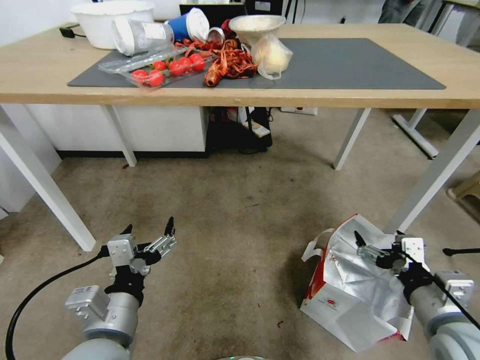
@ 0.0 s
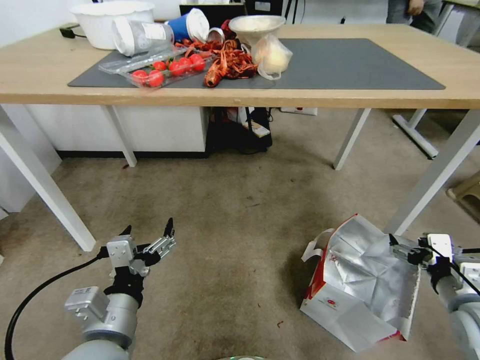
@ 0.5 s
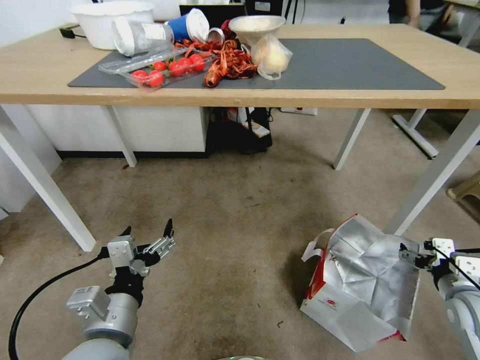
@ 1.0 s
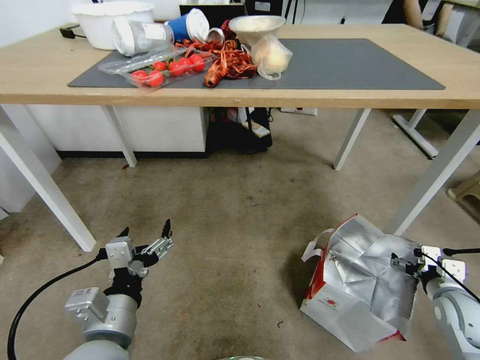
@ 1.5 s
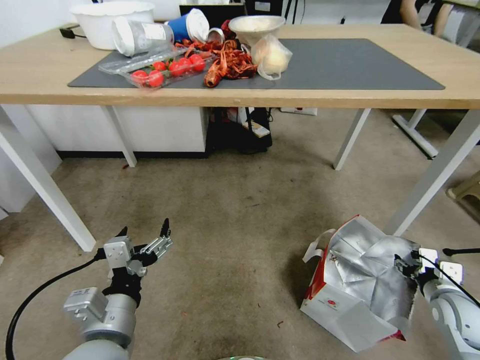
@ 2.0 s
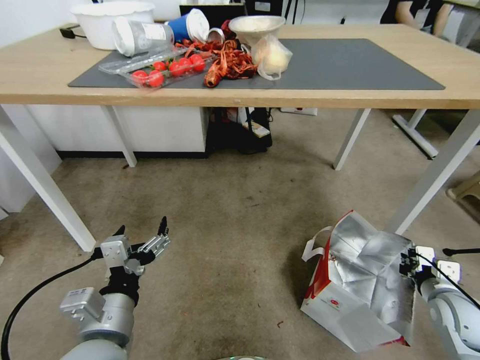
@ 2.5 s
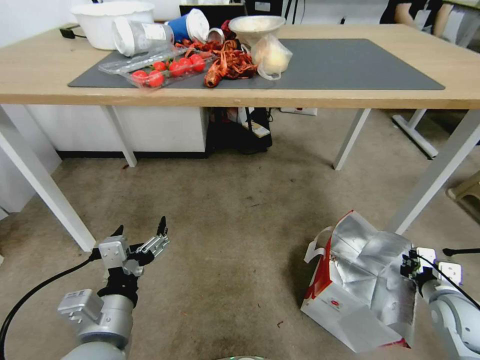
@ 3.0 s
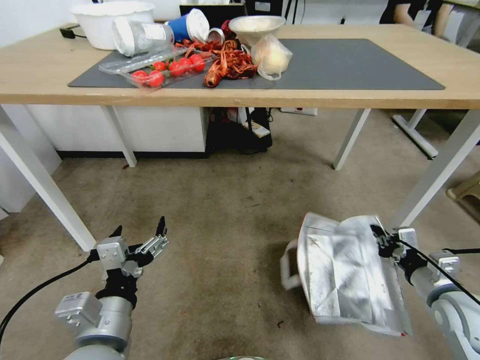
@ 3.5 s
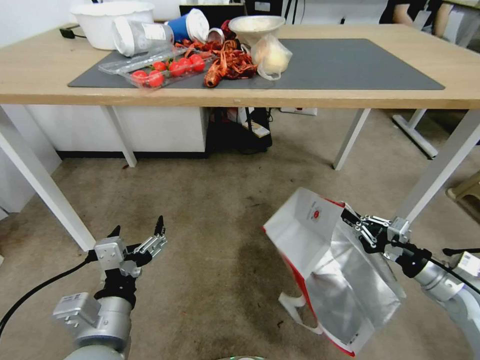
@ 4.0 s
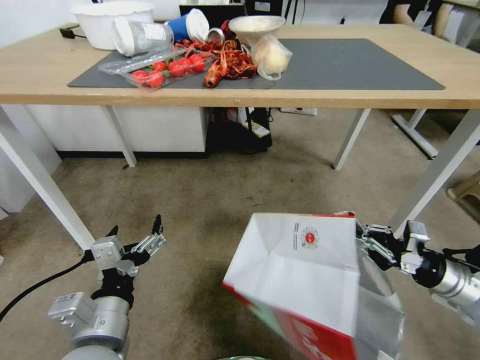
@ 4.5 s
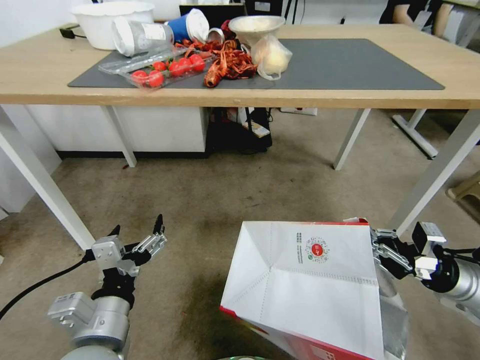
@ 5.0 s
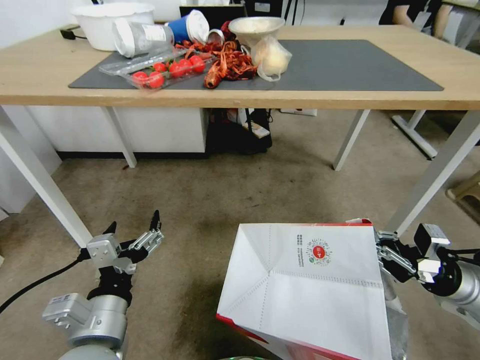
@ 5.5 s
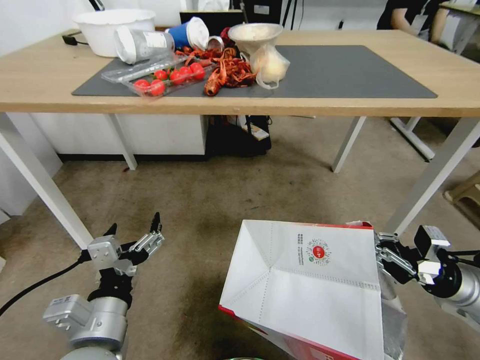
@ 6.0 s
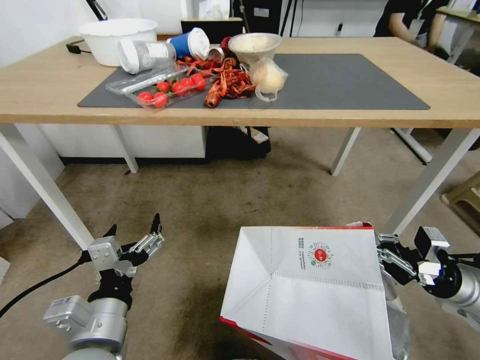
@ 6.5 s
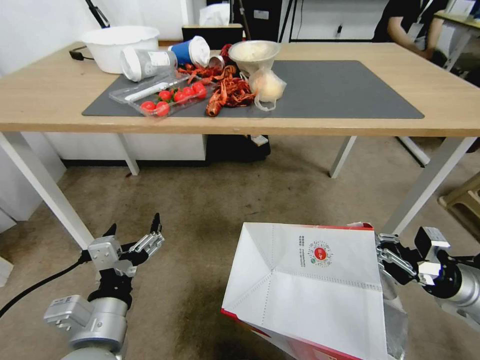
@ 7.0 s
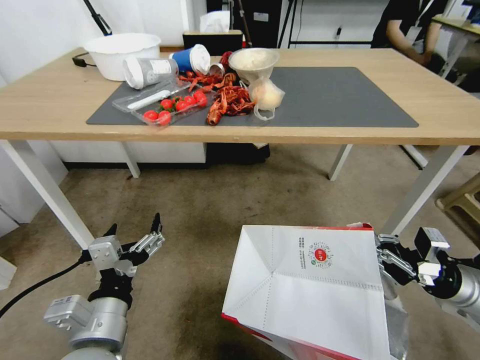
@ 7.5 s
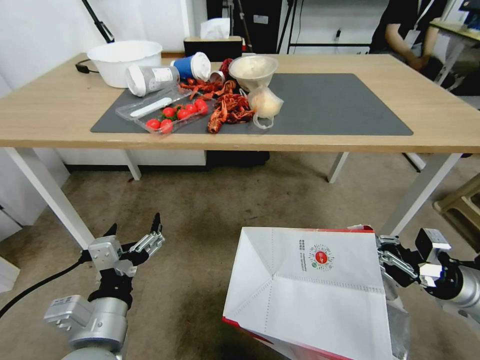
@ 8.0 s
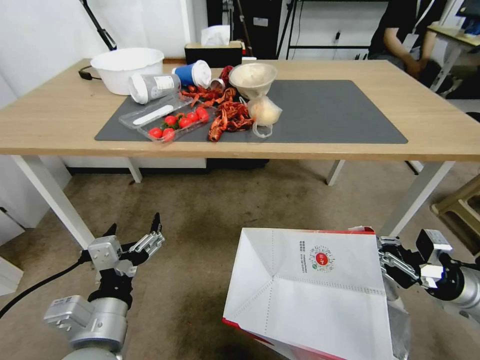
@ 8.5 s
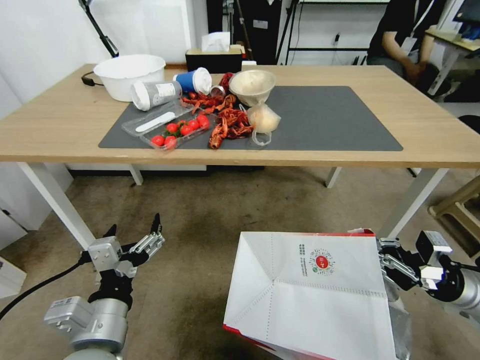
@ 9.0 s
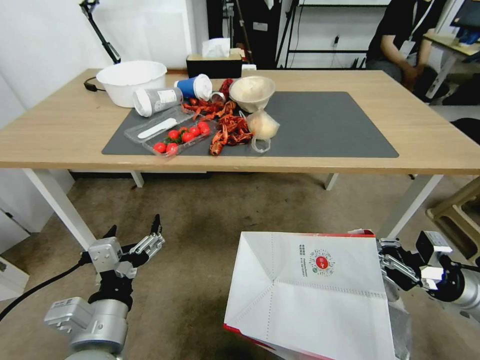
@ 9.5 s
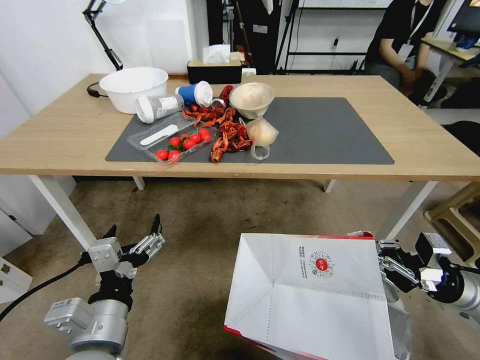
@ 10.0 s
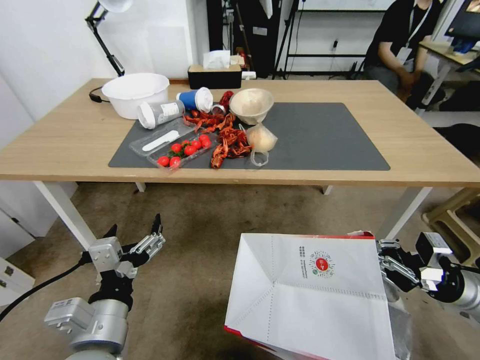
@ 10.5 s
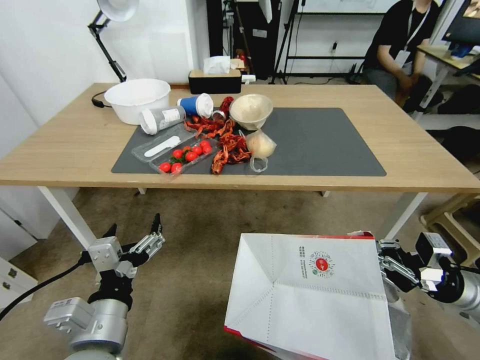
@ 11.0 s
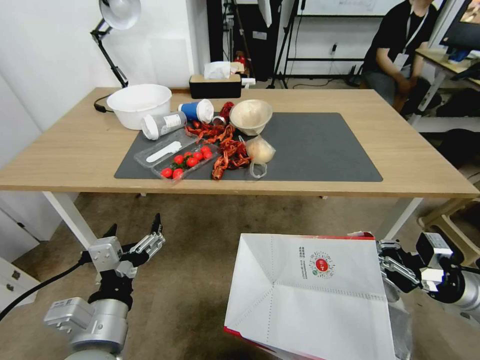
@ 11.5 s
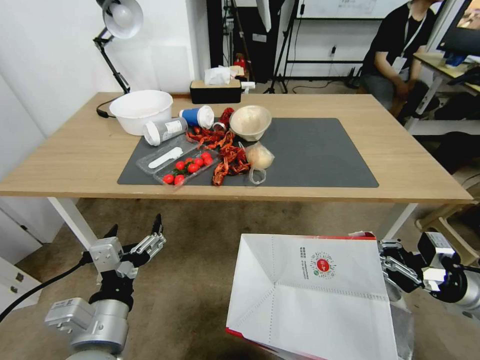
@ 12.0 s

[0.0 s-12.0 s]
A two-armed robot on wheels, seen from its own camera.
Task of the whole recording: Pick up the food delivery bag from the floor and place it on the table.
0.0 to 2.0 s: The right gripper is displaced to the right, downward and forward by some 15 cm, and closes.
2.0 to 4.0 s: The right gripper shifts some 5 cm upward, and closes up.

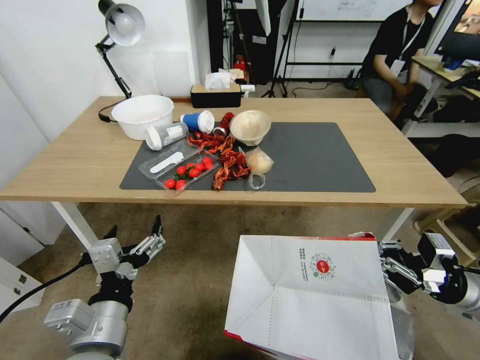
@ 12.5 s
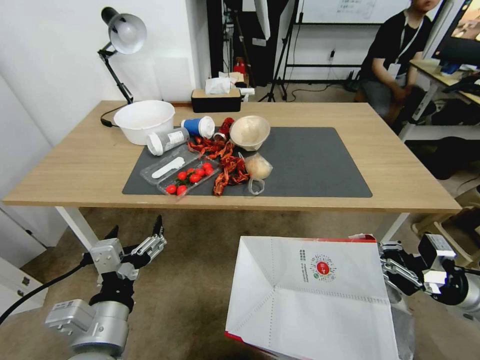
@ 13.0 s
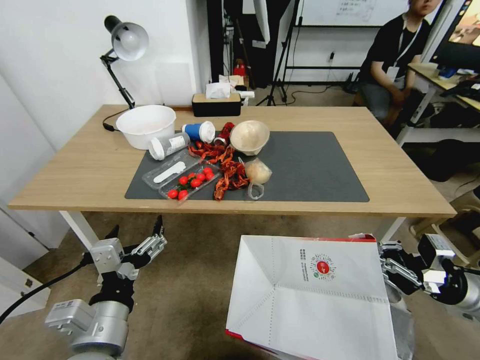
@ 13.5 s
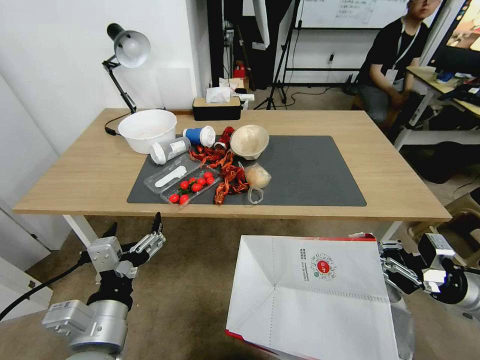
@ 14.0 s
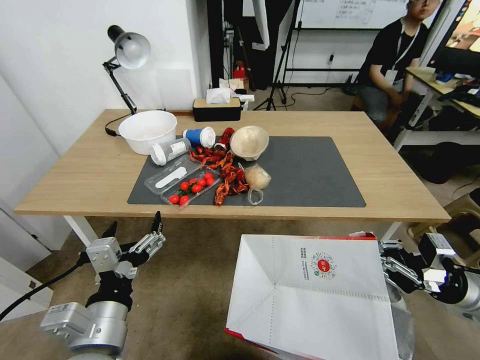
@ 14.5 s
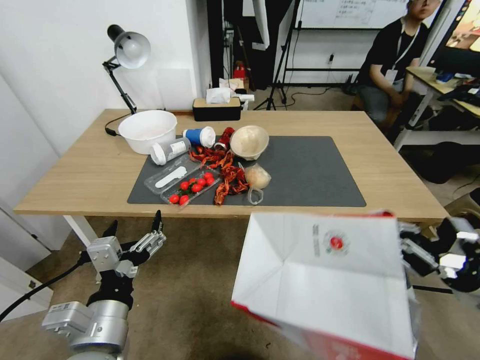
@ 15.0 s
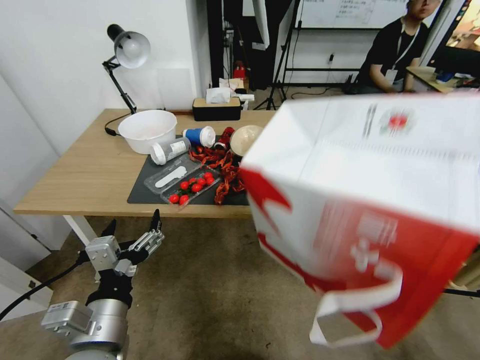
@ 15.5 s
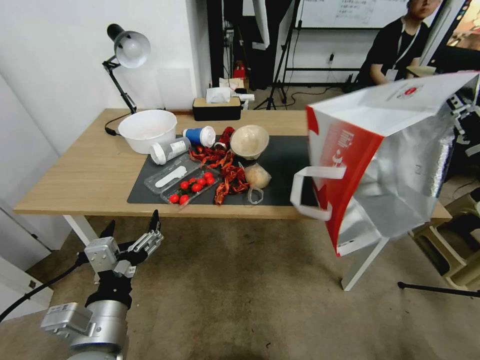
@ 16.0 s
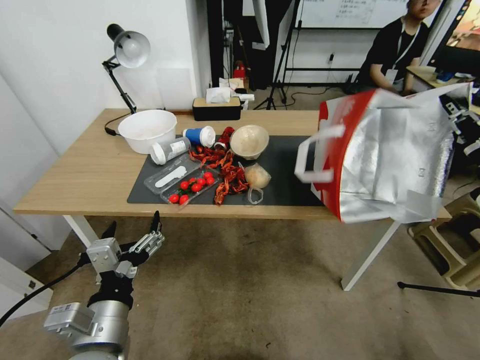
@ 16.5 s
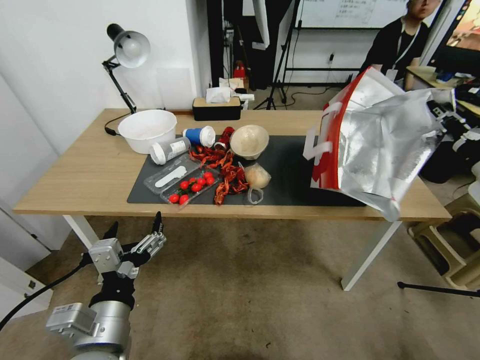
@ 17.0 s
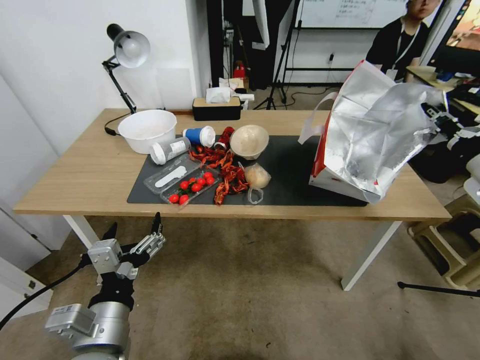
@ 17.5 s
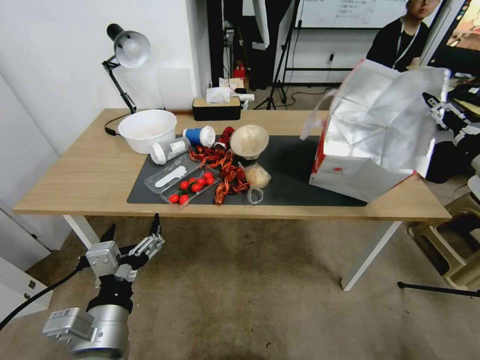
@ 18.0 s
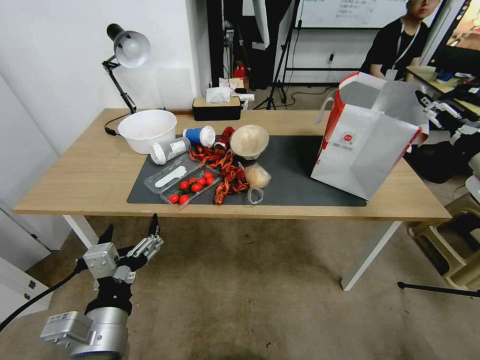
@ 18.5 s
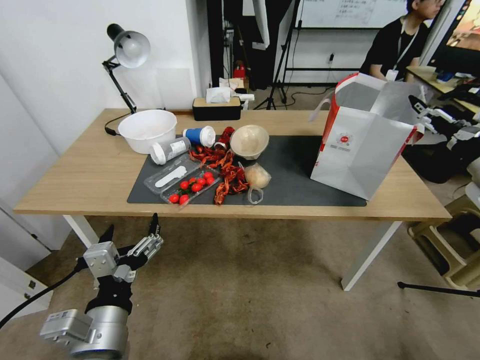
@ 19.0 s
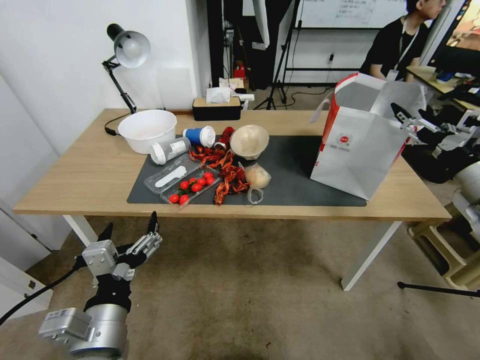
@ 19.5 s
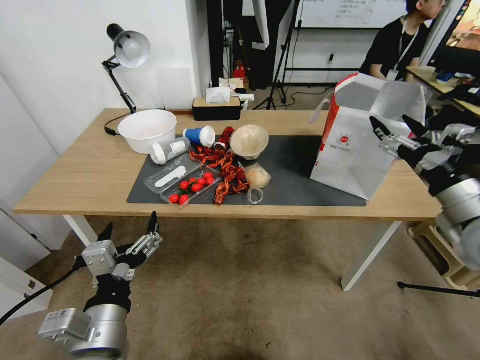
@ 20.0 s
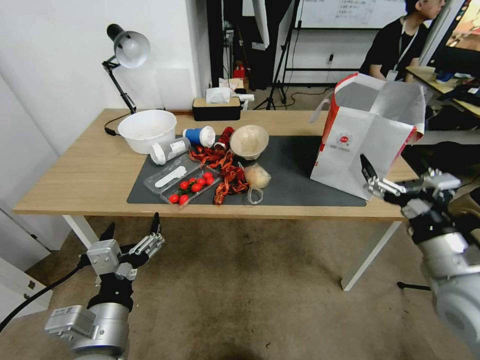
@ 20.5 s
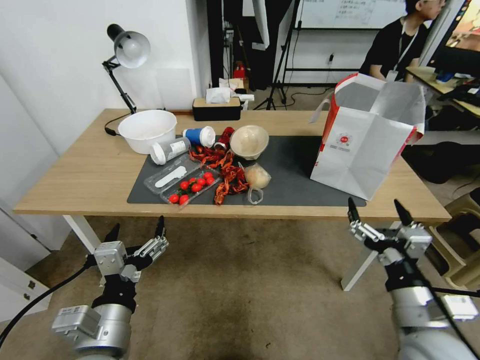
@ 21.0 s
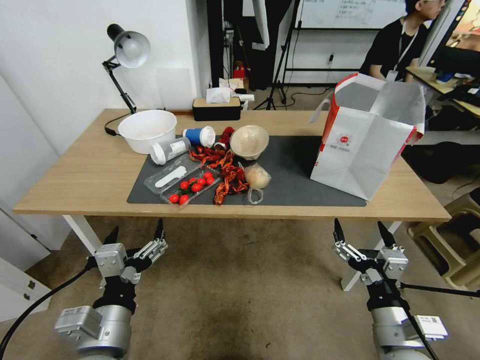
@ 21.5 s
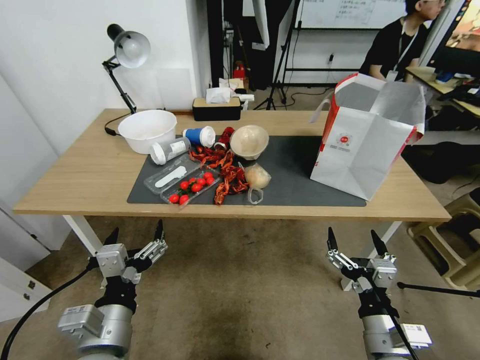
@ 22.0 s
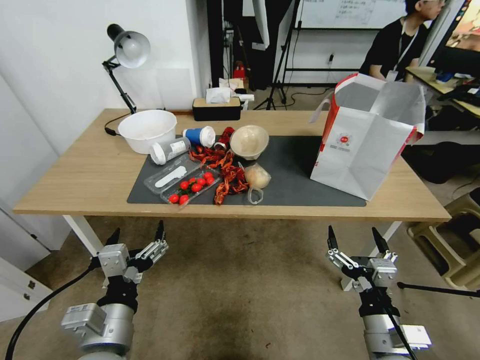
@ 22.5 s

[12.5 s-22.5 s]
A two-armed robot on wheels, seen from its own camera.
Task of the whole recording: Pick up the food delivery bag from the floor and place it on the table.
14.5 to 16.5 s: The right gripper goes about 15 cm upward and forward.
16.5 to 18.5 s: The right gripper opens up.
18.5 to 20.5 s: The right gripper is displaced backward, to the left and downward by roughly 20 cm.
20.5 to 22.5 s: The right gripper heads downward, to the left and backward, covering some 20 cm.

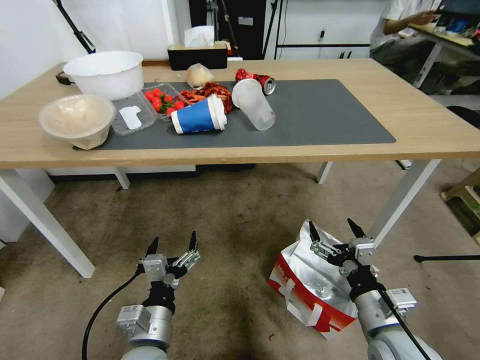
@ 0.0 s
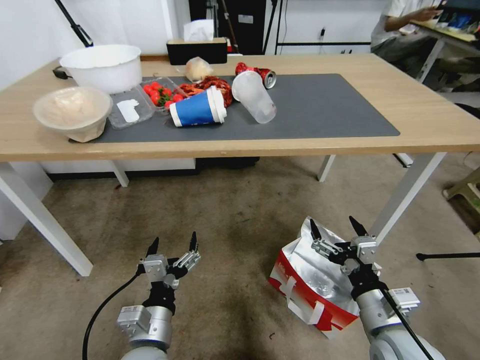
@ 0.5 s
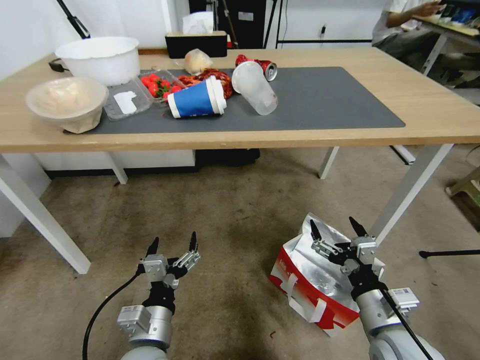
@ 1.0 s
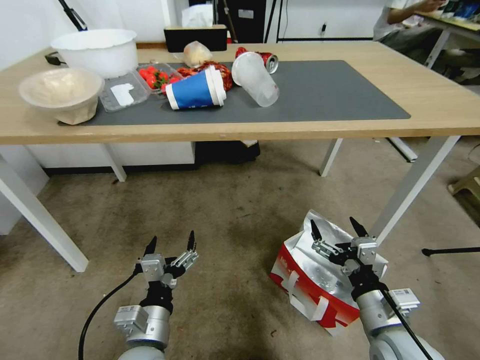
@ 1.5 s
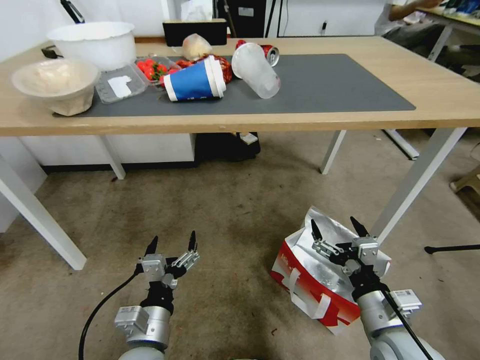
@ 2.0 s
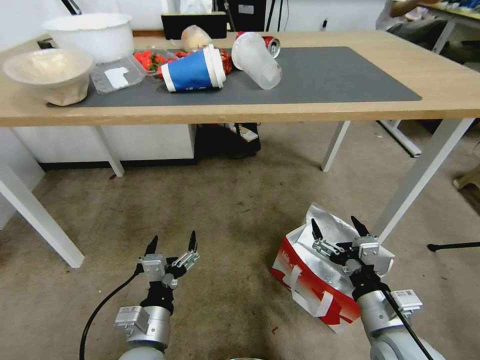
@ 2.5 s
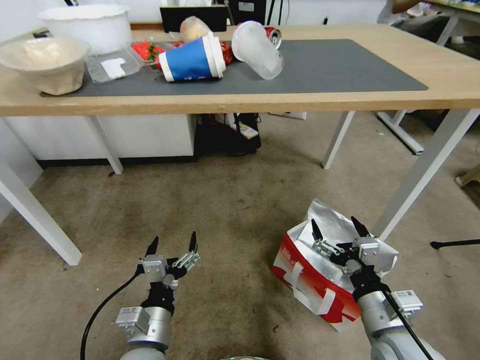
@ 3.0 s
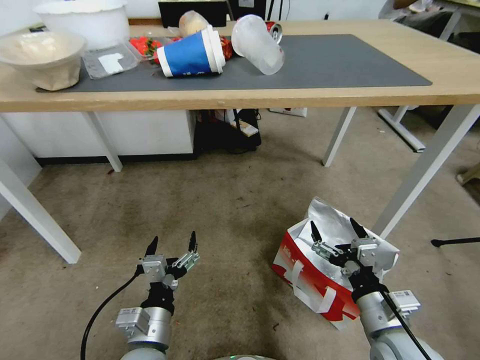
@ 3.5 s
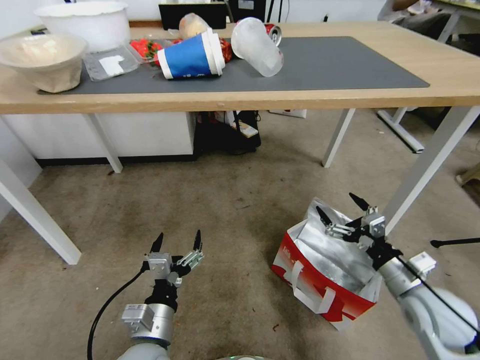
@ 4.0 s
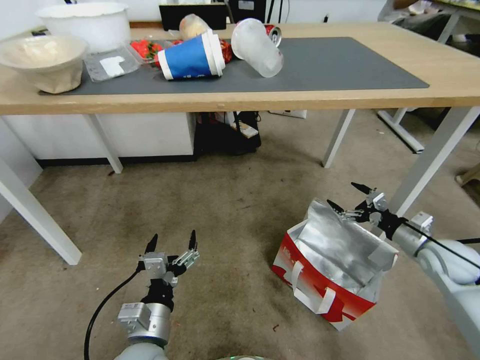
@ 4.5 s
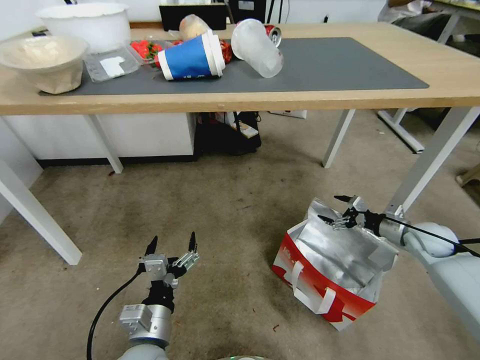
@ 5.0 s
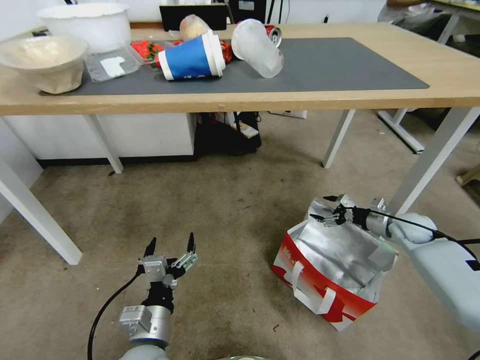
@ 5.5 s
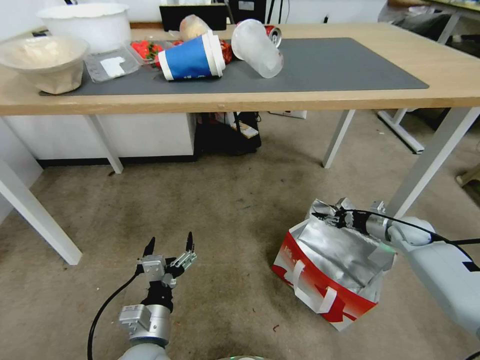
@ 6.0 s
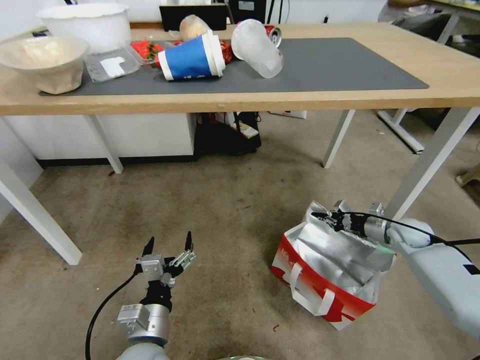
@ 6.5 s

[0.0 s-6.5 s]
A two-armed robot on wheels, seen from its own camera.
Task of the whole recording: Pick up the food delivery bag from the floor and place it on the table.
2.0 to 4.5 s: The right gripper travels to the right and forward by about 25 cm.
4.5 to 6.5 s: The right gripper goes roughly 15 cm forward and downward, and closes its fingers.
